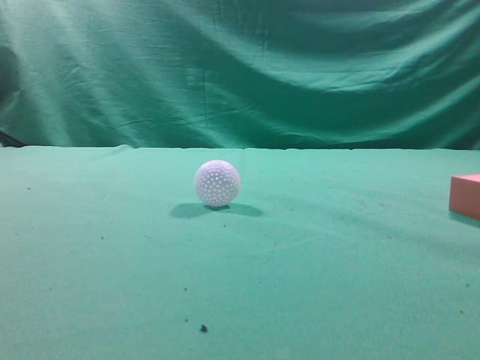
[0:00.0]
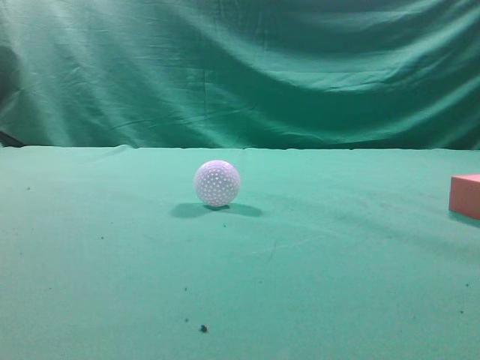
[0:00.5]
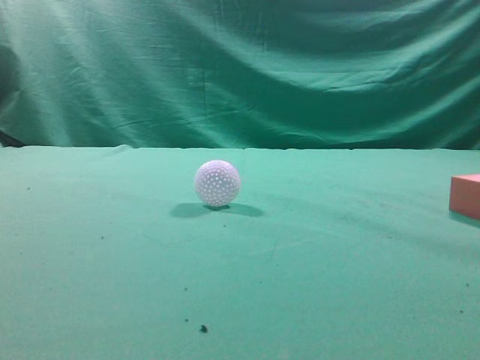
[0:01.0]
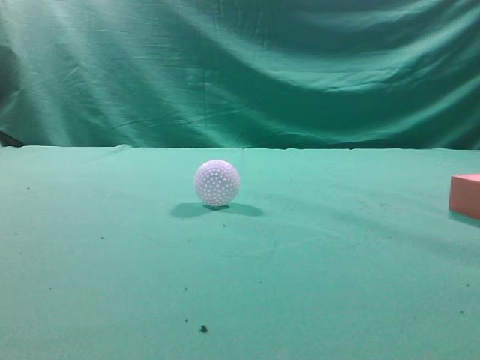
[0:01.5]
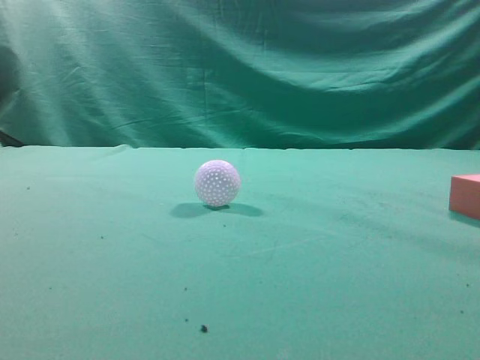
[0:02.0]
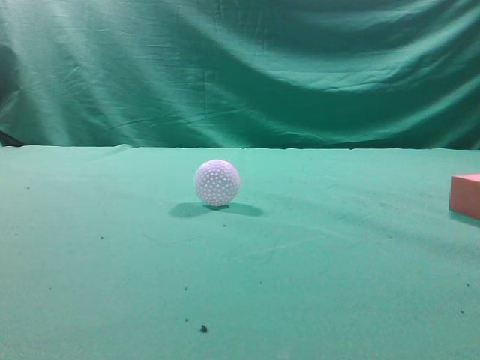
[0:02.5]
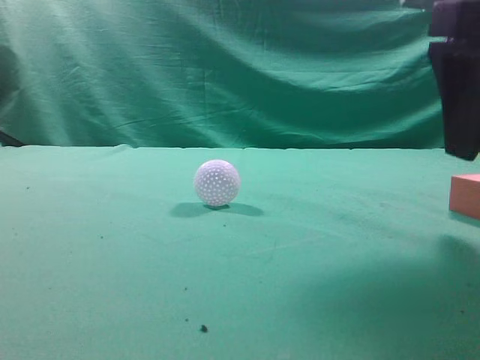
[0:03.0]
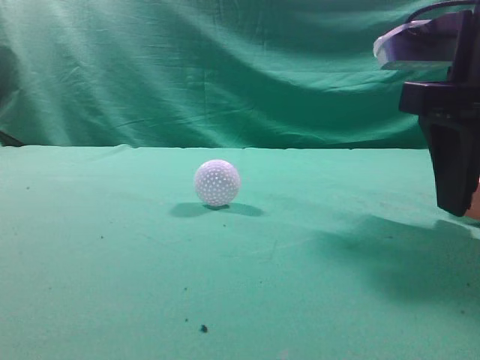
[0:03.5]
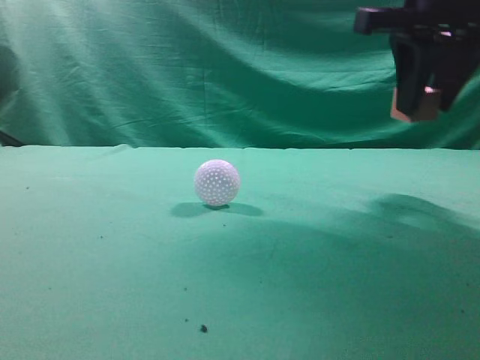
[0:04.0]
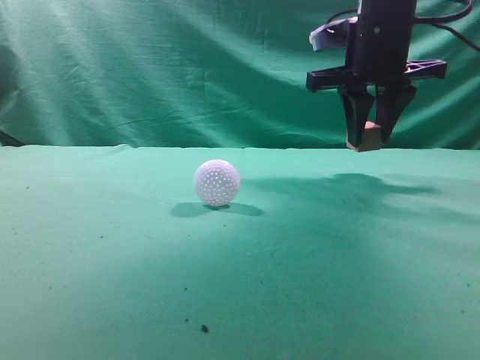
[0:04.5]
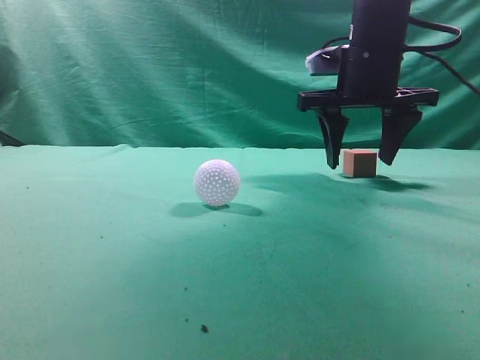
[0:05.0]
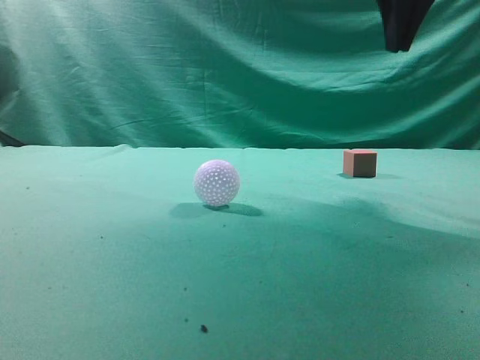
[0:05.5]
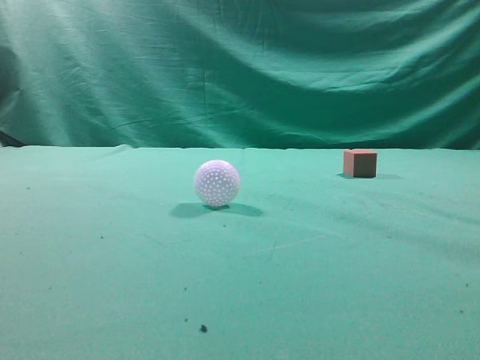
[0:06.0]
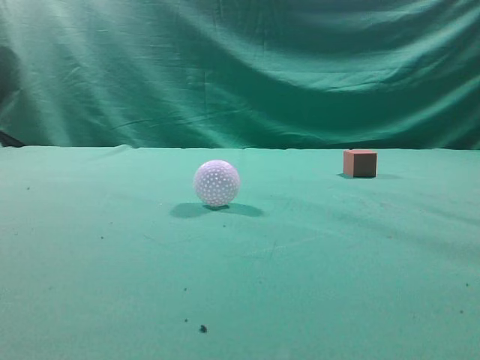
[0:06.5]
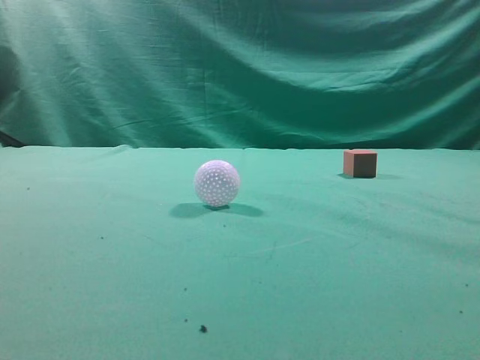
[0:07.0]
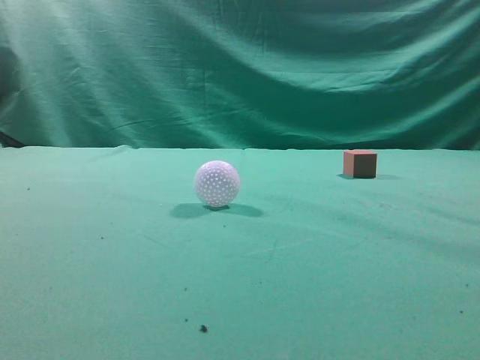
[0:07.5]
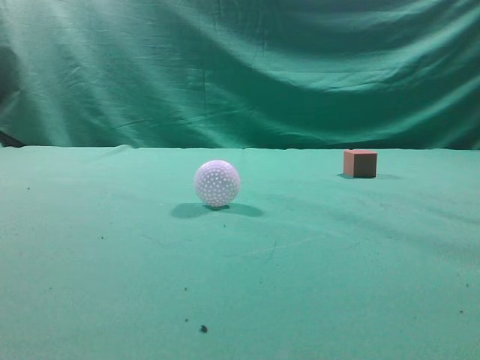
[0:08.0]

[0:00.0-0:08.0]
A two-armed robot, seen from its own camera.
Task of the whole recording: pick up the cube block and place it in another position on the table.
Step, 0:00.0 to 0:03.5: Pick up the small cube.
Step, 0:04.0 to 0:04.5: Place the small cube on the ahead of the table.
0:02.0 to 0:04.0: The right gripper shifts some 25 cm forward and to the left, and opens its fingers.
0:04.0 to 0:06.0: The right gripper moves backward and upward, some 10 cm, and closes its fingers.
